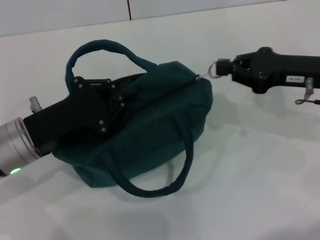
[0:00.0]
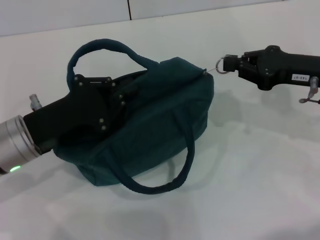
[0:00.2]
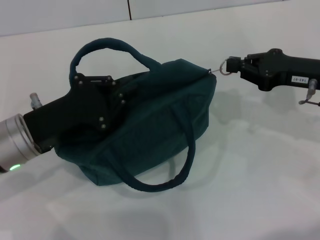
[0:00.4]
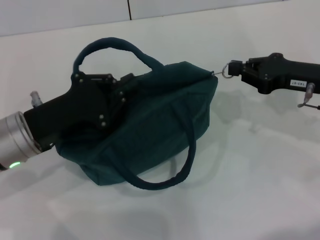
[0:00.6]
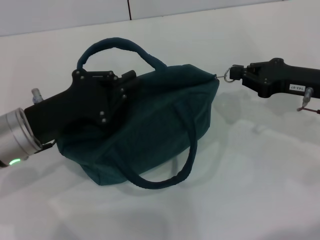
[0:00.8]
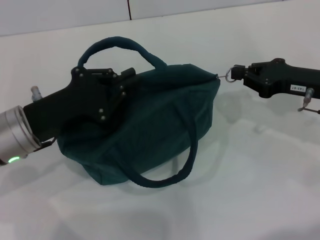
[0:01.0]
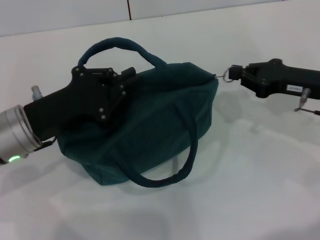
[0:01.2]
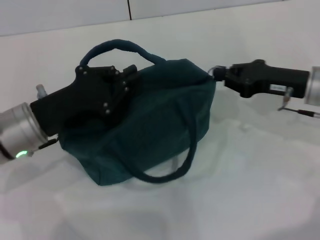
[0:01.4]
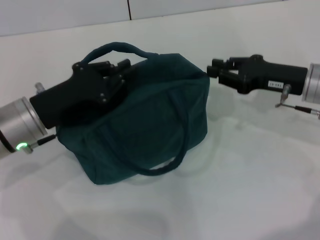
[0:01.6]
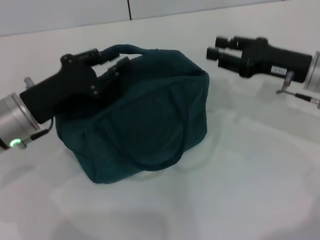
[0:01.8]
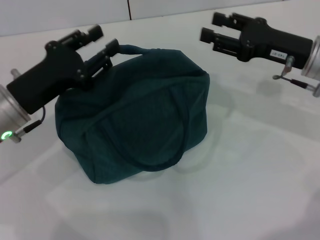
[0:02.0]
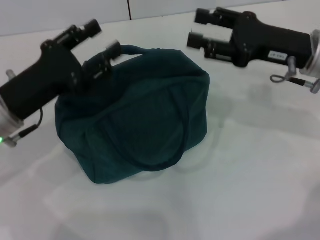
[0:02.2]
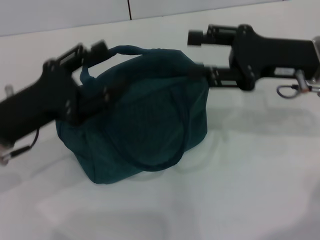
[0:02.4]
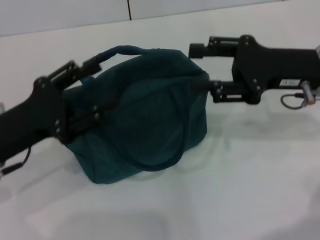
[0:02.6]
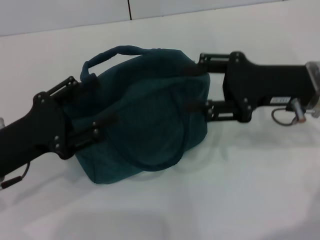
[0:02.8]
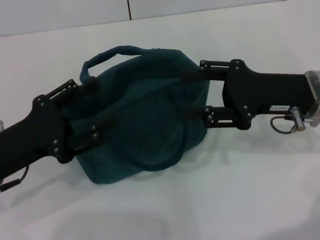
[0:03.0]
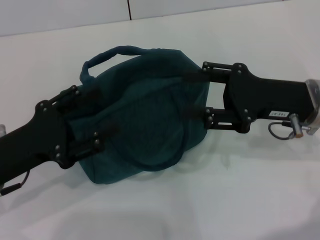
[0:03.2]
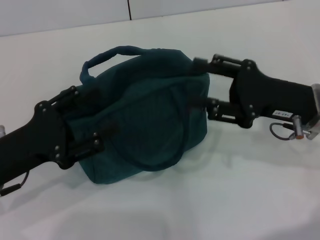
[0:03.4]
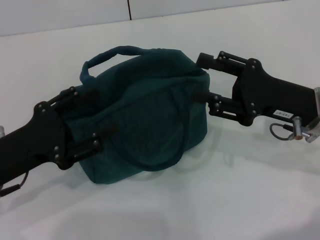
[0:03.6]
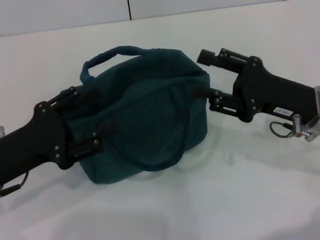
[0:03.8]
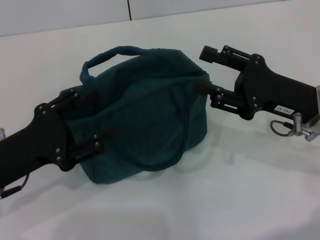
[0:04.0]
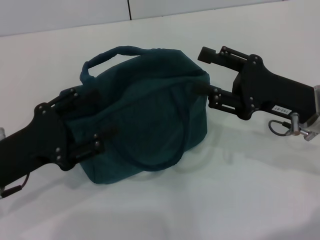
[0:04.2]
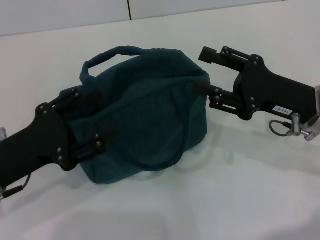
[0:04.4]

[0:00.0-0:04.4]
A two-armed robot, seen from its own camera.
0.0 to 1.4 s: The grippers stay close to where they were, moving slightly.
1.4 to 3.0 s: The right gripper changes place by some 5 cm, and opens up. Meanwhile the left gripper changes place by approximately 5 cm, and opens its fingers.
3.0 to 4.4 s: The grippers stay close to where they were, moving slightly.

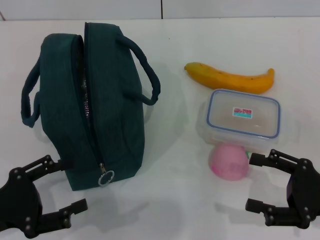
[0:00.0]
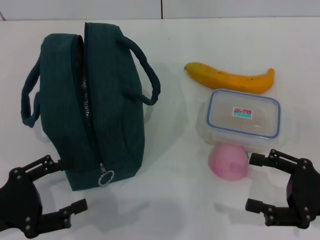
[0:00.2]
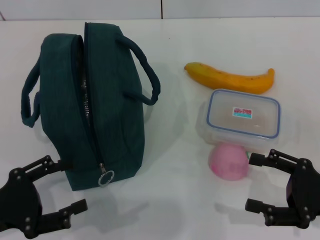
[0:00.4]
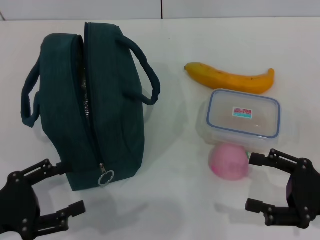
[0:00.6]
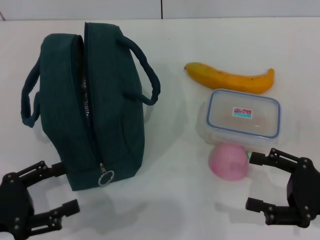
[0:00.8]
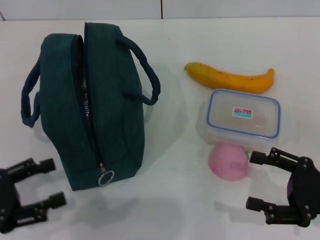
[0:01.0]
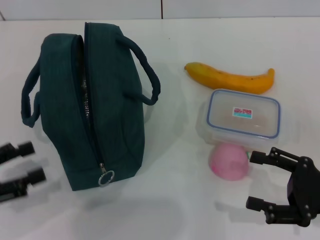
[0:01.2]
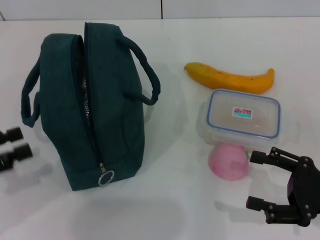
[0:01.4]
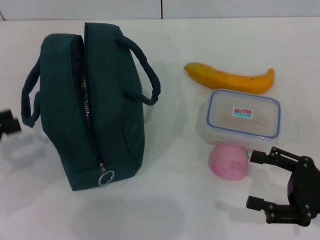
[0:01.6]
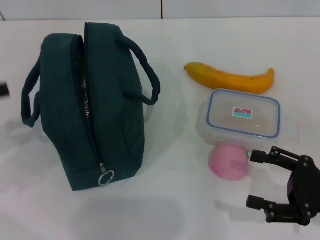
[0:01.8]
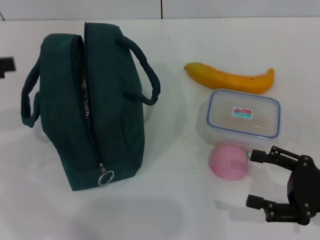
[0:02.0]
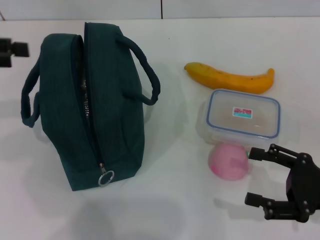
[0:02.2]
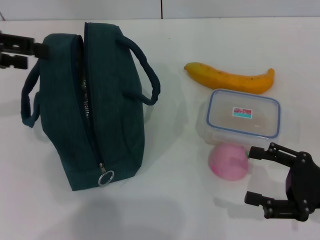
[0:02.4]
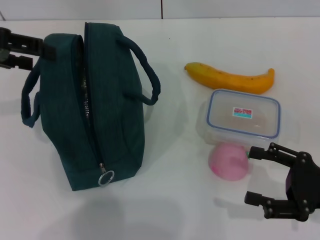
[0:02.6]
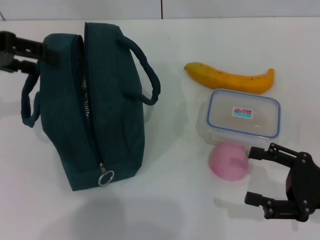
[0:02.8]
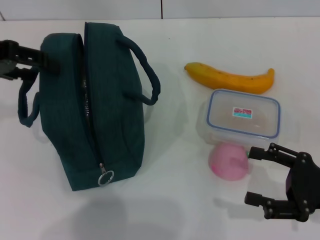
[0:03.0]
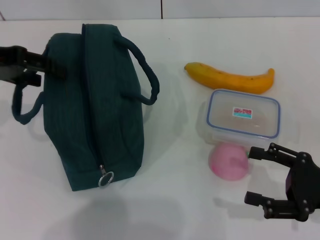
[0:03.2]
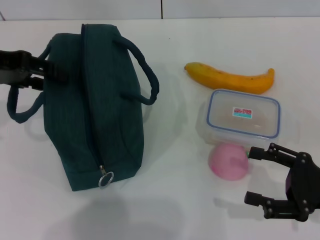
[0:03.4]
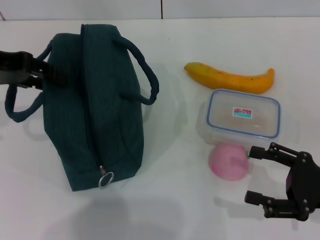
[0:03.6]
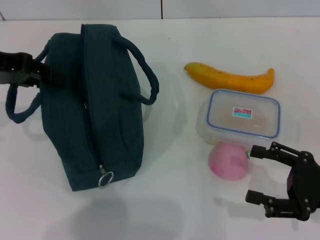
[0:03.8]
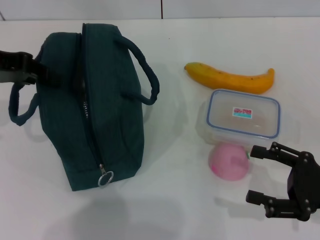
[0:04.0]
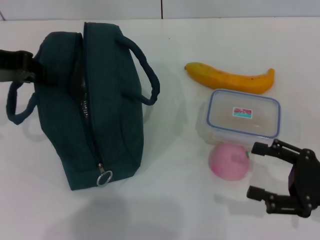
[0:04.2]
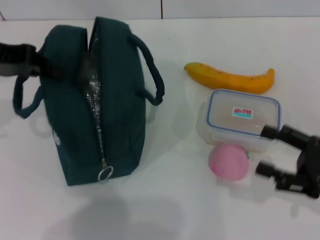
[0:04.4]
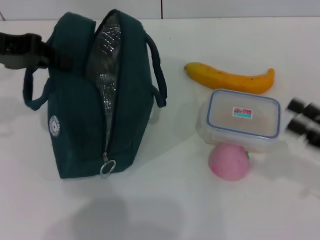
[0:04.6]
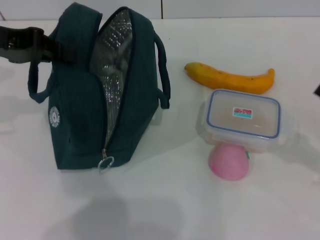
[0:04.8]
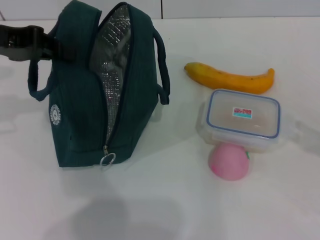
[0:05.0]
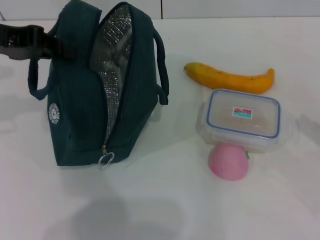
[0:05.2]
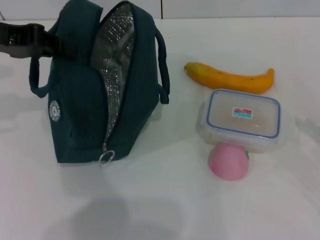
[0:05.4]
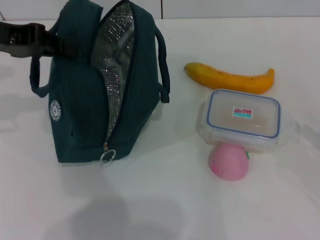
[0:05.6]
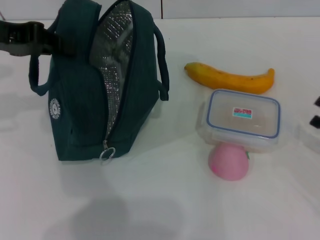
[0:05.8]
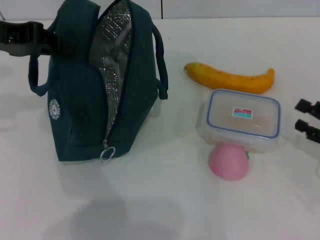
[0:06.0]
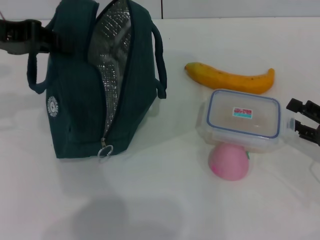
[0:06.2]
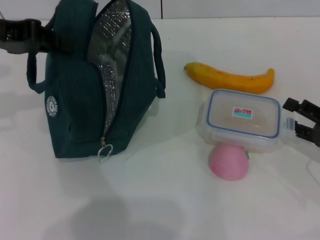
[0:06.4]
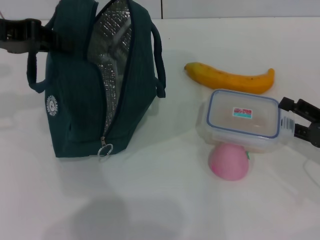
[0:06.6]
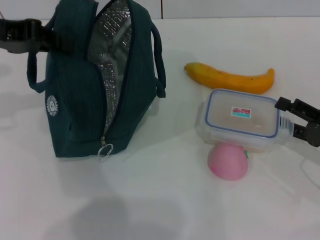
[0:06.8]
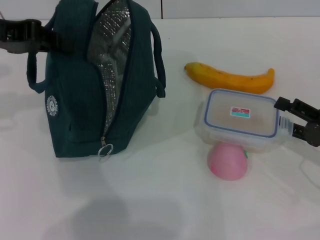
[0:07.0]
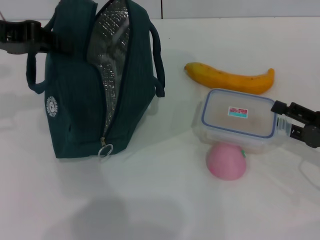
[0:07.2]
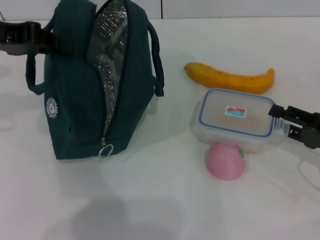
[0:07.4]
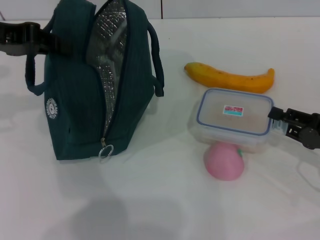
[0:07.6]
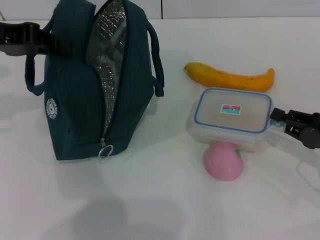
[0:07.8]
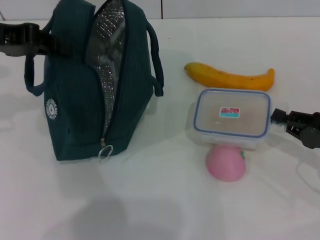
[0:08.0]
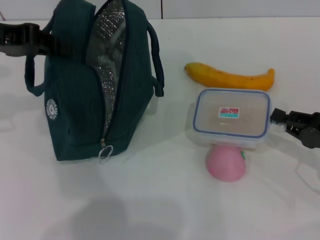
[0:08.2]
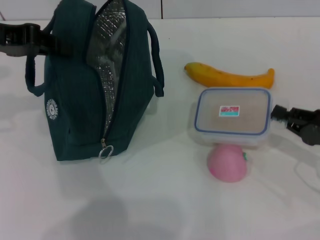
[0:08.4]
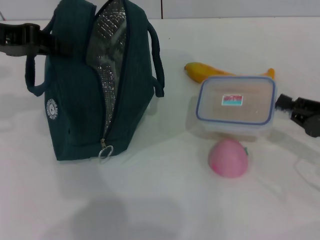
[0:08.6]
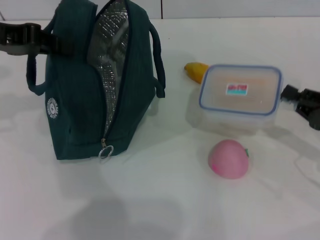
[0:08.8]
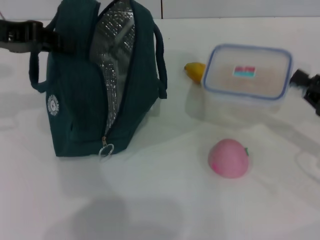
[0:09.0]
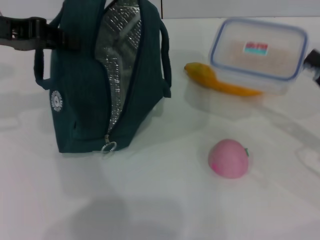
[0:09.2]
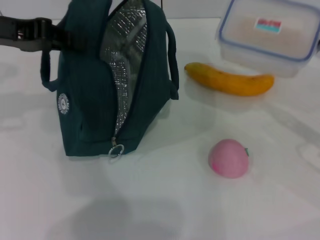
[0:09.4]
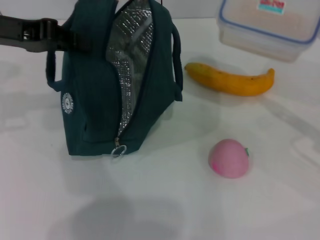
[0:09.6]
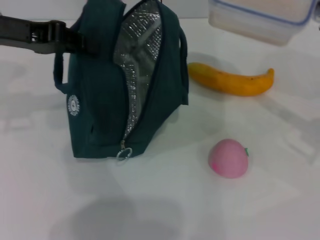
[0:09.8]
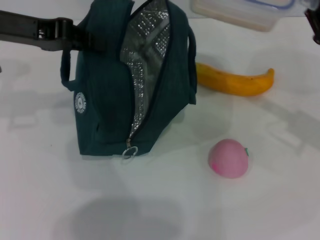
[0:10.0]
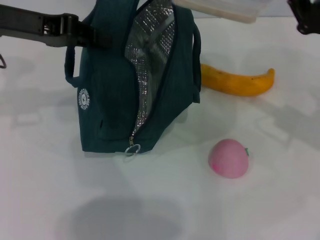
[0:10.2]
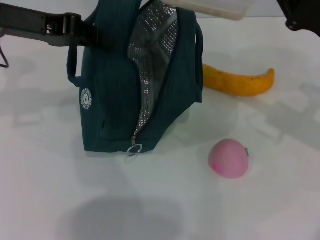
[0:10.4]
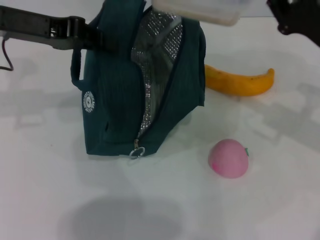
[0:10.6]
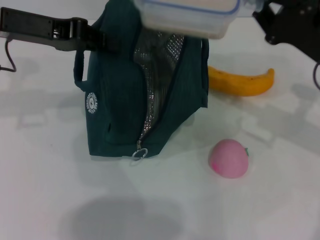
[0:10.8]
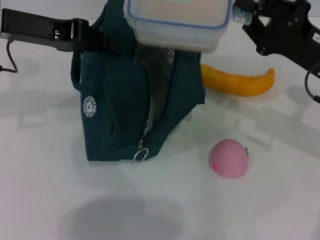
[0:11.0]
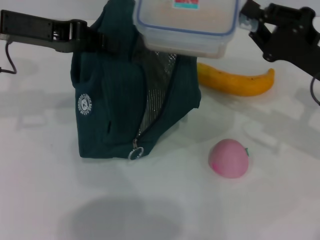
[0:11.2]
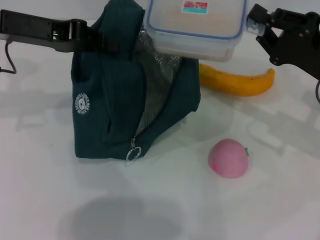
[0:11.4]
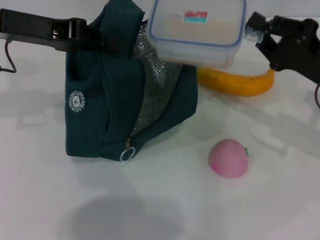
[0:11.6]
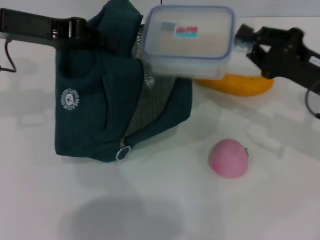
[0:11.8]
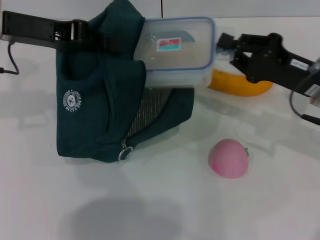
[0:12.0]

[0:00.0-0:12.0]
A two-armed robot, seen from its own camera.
Step, 0.0 to 4.2 s: Hold the lunch bag with your left hand.
Step, 4.4 to 7.8 s: Pick up the lunch box with your right hand.
0.0 to 1.6 s: The left gripper goes approximately 10 cm upward, to the left and forward.
1.6 to 3.0 s: The left gripper heads forward, upward and to the right, covering about 15 cm.
3.0 to 4.4 s: The left gripper closes up.
4.4 to 6.0 s: The right gripper ends up about 5 cm from where it was.
6.0 to 7.6 s: The grippers move only a little.
7.6 to 9.0 s: The right gripper closes up.
9.0 to 10.4 s: The right gripper shifts approximately 10 cm upward, to the left and forward.

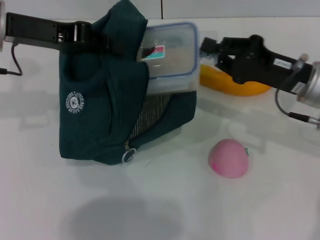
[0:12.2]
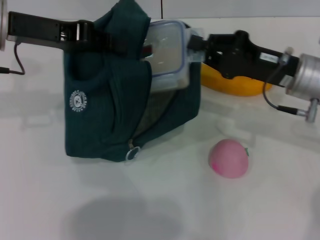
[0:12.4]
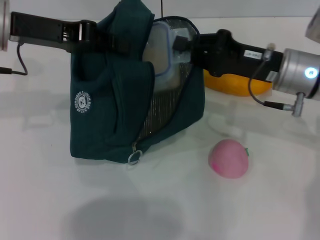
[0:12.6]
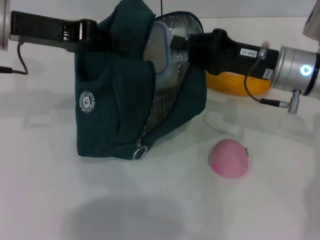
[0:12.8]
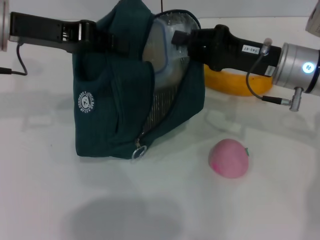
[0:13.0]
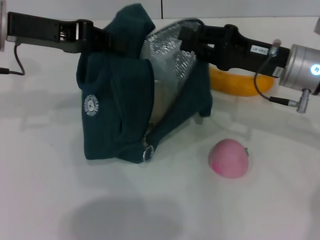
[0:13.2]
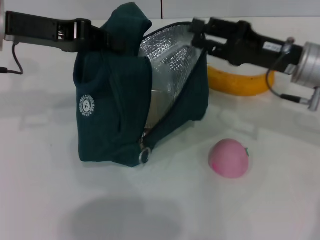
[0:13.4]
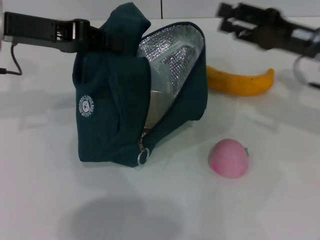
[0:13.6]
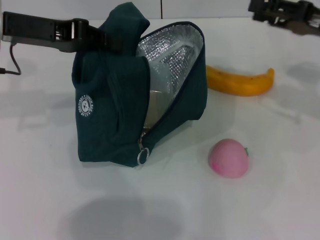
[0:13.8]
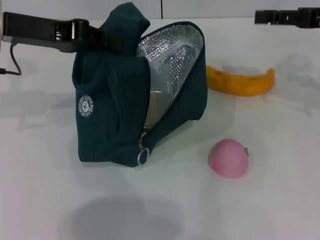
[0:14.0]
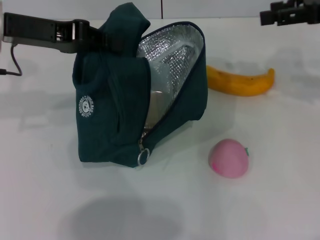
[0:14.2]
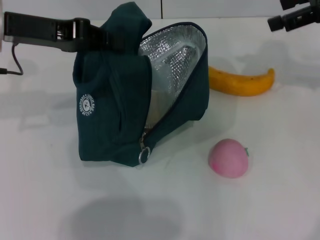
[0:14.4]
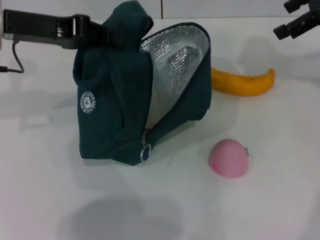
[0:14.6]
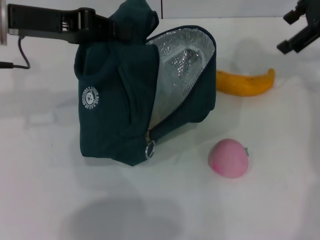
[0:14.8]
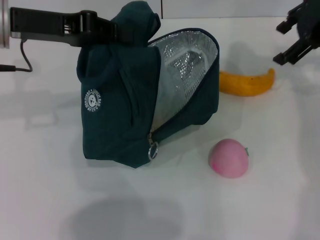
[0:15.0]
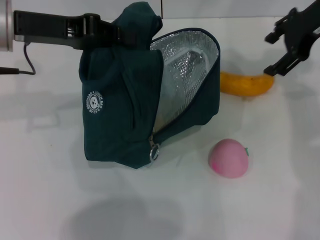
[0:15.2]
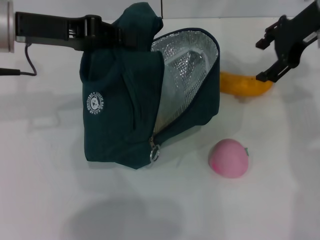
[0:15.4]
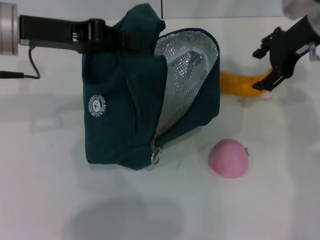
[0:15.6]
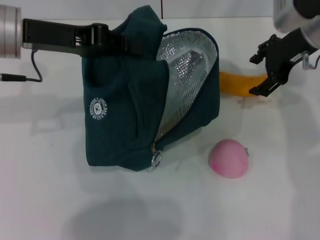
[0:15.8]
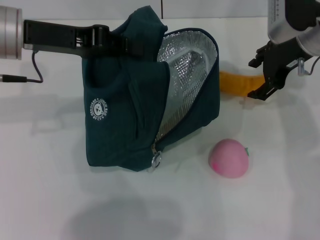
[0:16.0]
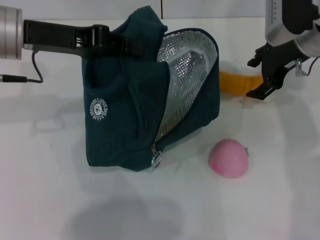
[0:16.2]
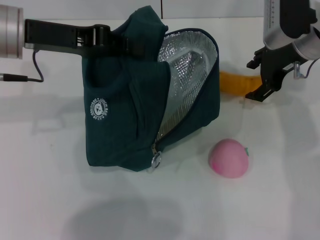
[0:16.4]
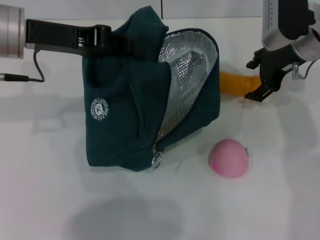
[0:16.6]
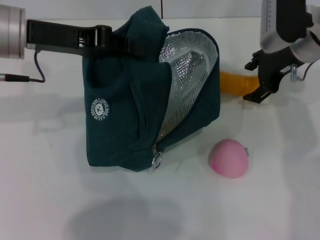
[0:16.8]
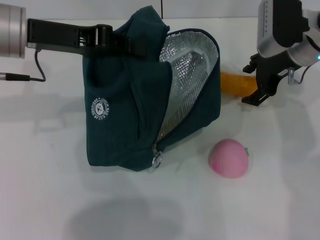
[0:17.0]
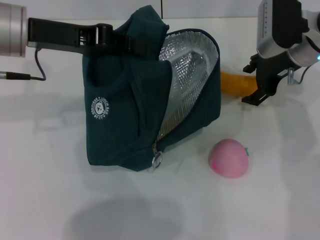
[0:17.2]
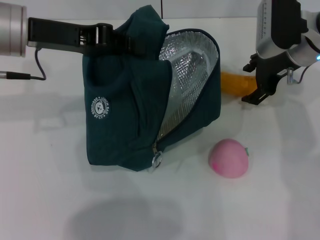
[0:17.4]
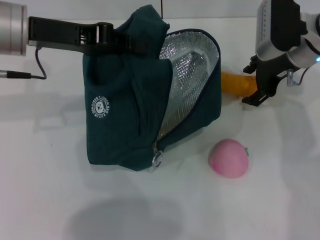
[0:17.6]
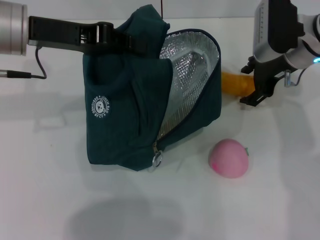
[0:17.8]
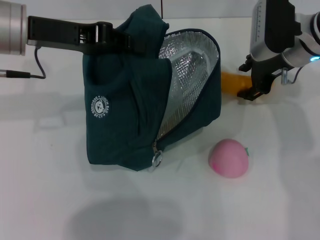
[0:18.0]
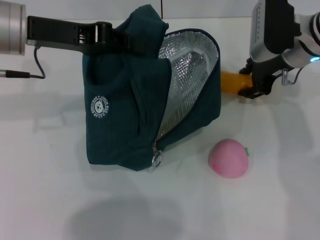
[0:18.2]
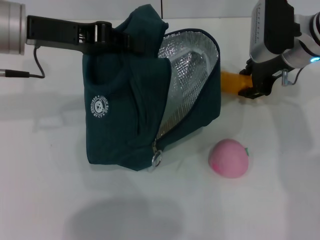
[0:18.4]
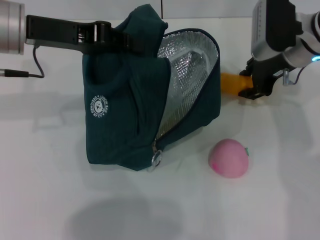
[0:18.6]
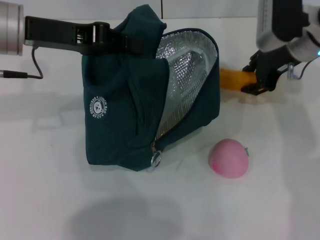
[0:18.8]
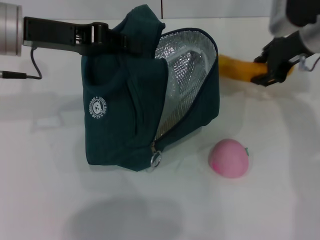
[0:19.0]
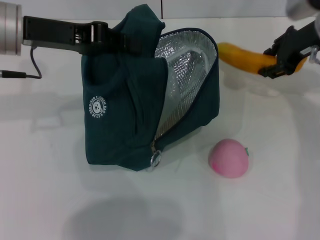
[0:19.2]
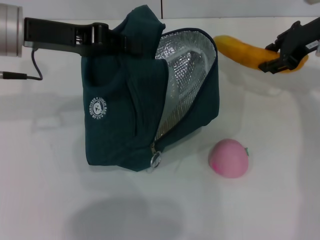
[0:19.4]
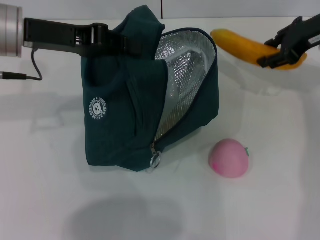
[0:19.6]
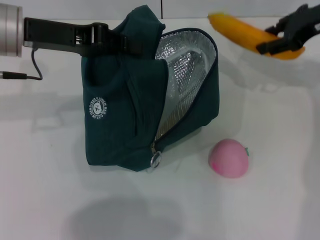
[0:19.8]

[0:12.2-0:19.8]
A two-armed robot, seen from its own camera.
Step, 13.4 to 18.2 s: Take the banana with your right hand.
12.2 to 13.8 s: The right gripper goes roughly 10 cm to the right and upward, and opens up.
13.8 to 15.2 s: The right gripper travels upward, to the left and forward by roughly 10 cm.
15.2 to 16.8 s: The right gripper shifts some 10 cm downward.
16.8 to 18.2 s: There are only small adjustments of the grippers.
18.2 to 19.8 s: The right gripper shifts approximately 10 cm upward and to the right.
